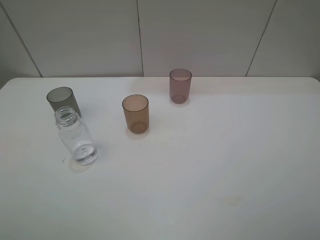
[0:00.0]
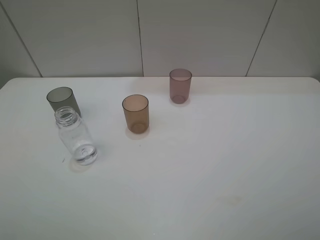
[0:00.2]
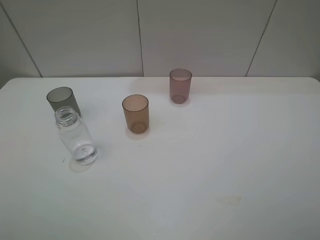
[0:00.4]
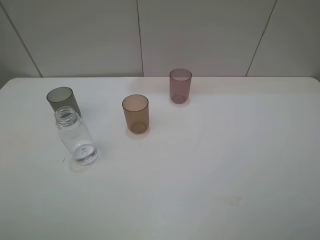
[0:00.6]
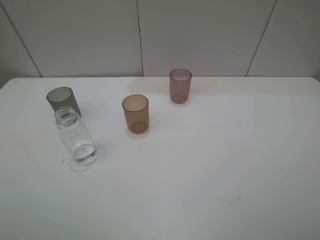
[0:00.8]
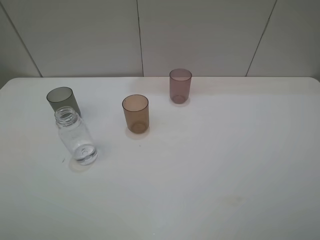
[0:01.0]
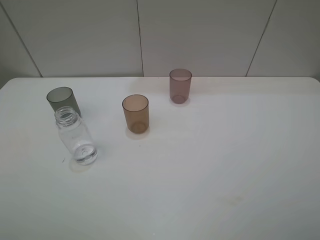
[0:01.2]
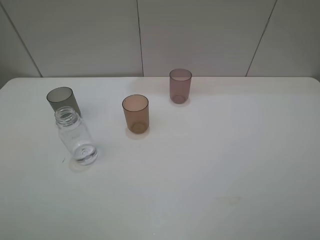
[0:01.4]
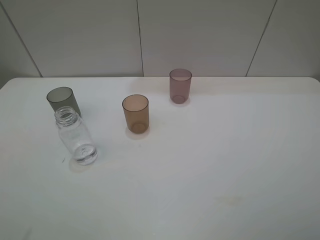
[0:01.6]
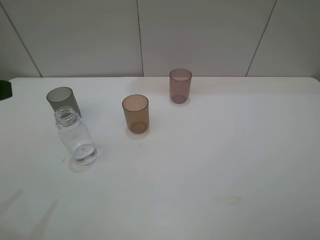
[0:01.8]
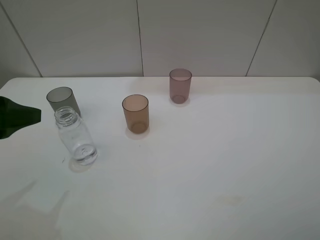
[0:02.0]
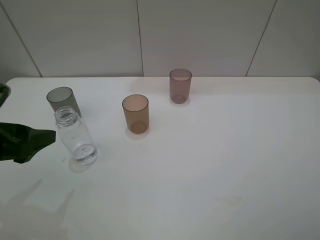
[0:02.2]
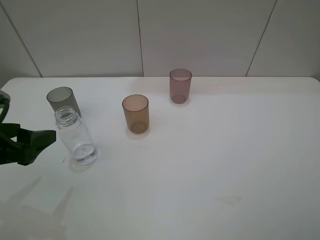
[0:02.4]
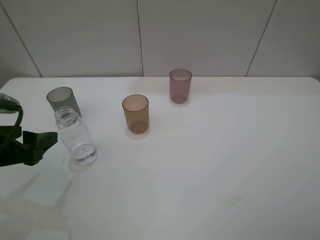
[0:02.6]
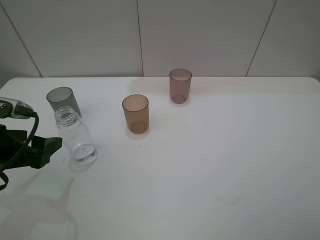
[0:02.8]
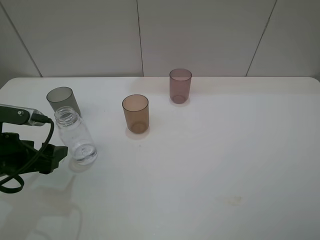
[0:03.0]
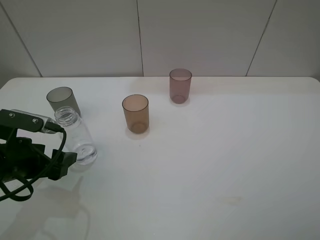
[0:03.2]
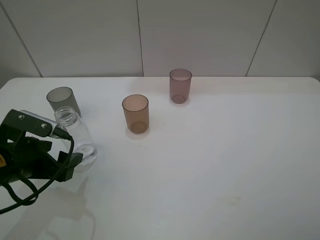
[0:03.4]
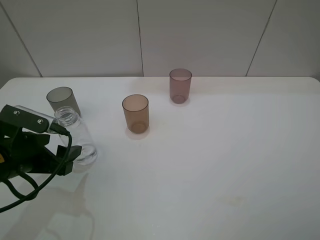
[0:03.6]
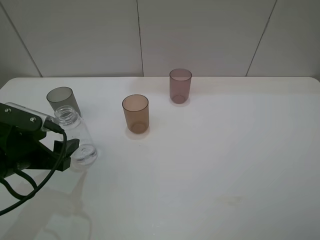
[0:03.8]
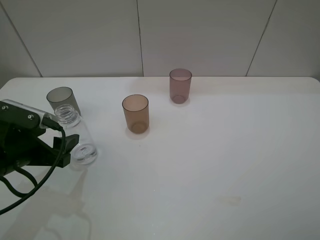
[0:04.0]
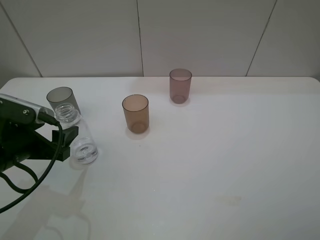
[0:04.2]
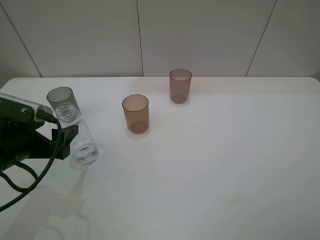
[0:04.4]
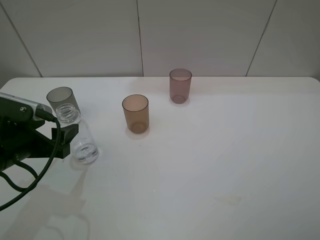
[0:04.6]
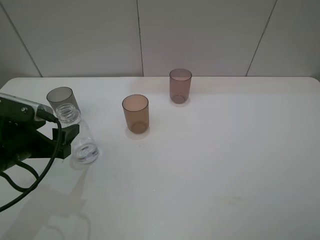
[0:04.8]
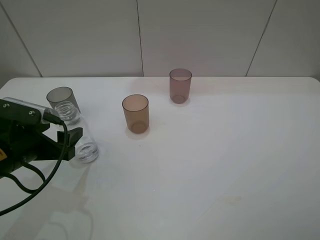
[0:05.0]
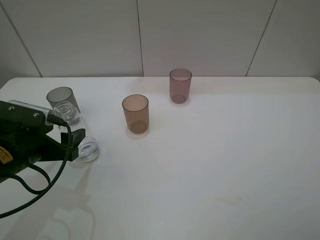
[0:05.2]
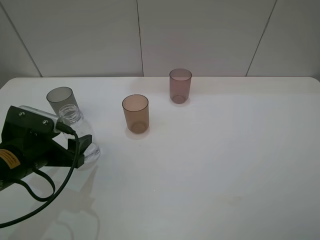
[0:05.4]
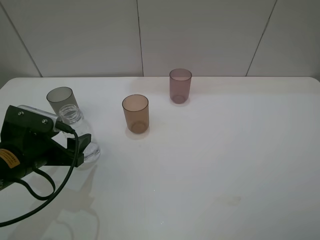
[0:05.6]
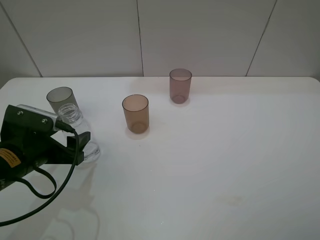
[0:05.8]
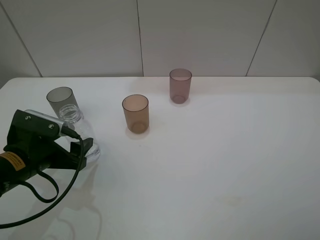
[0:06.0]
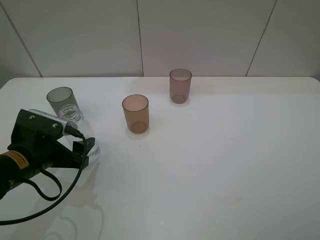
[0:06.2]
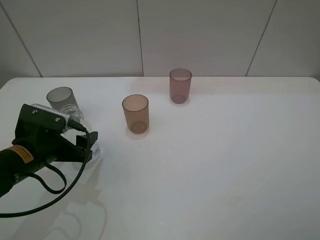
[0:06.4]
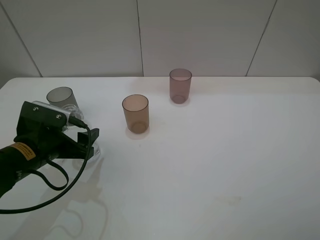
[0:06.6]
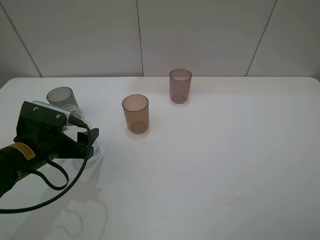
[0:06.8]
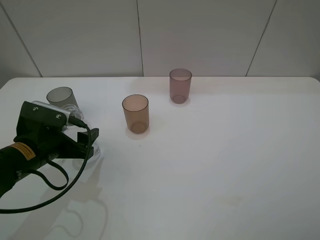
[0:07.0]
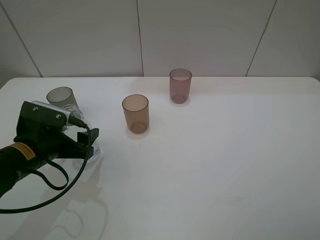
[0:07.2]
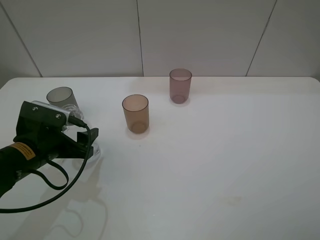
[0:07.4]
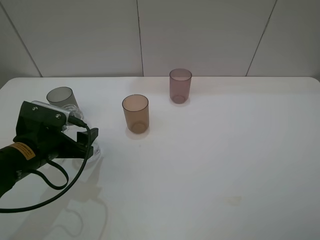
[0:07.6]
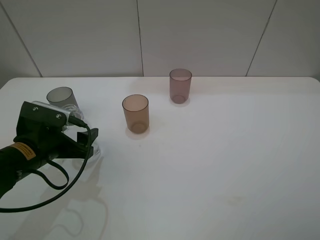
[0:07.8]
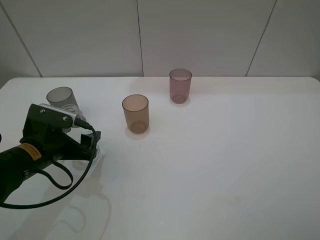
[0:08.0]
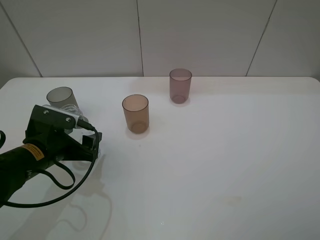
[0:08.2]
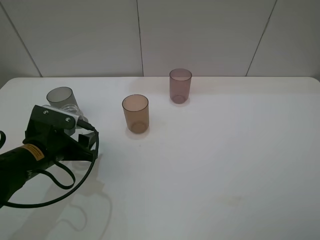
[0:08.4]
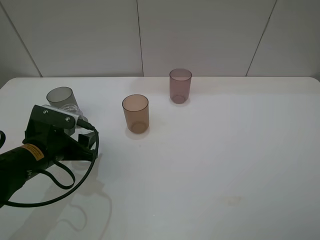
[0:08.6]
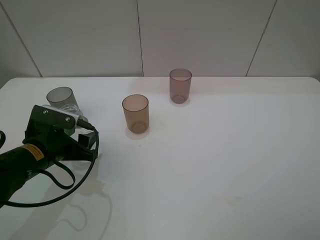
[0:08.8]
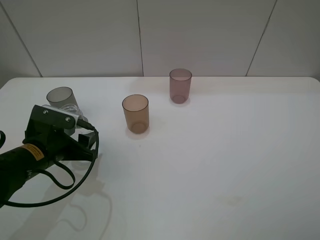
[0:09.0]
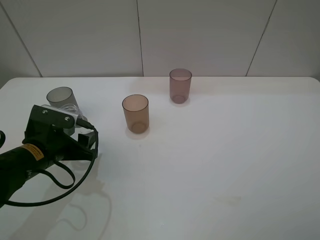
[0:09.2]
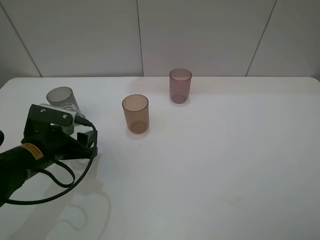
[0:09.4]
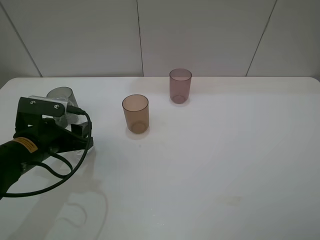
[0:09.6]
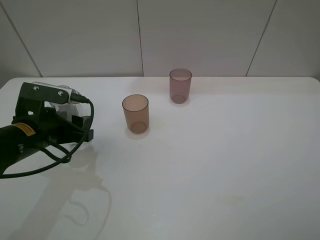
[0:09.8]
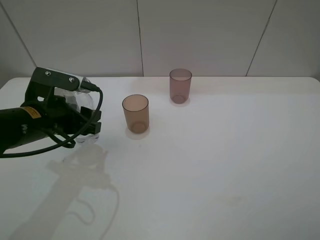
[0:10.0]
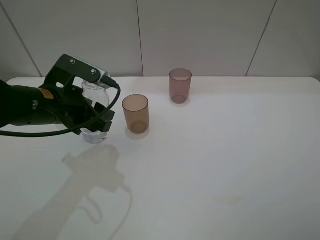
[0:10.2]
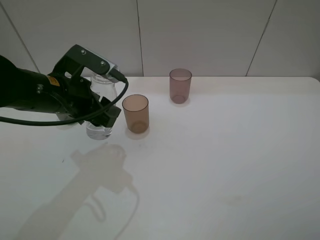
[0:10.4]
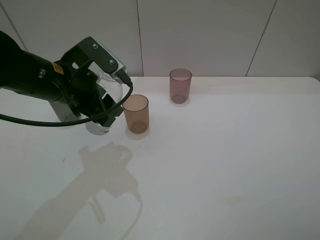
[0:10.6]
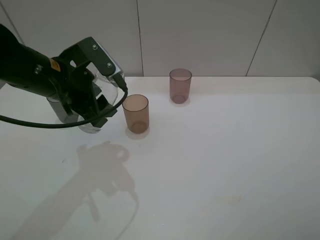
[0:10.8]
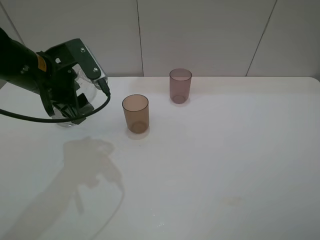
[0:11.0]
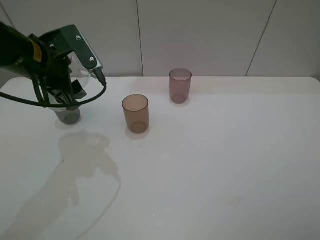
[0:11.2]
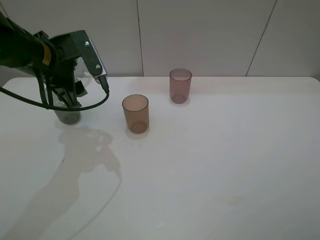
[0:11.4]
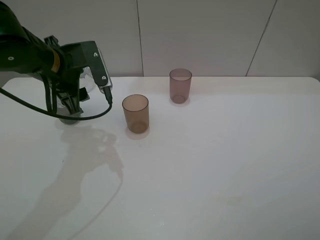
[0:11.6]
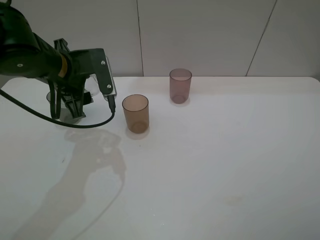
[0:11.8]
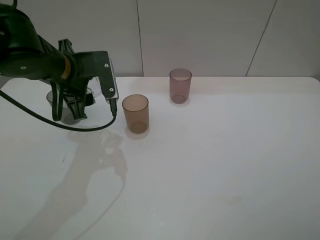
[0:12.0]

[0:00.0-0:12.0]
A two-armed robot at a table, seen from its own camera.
Task of the whole recording: pick up the bottle filled with water and pour water into the middle cup of the three cups.
0:01.6 to 0:03.0: The left gripper is displaced downward and forward by approximately 20 cm.
0:03.0 to 0:04.4: The grippers move only a little.
0:04.4 to 0:07.6: The grippers stay close to where they were, moving slightly.
0:07.6 to 0:09.0: The left gripper closes.
0:09.0 to 0:10.4: The left gripper is displaced upward, forward and to the right by some 15 cm.

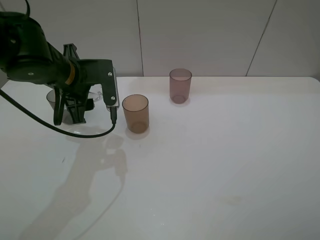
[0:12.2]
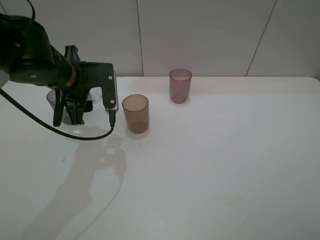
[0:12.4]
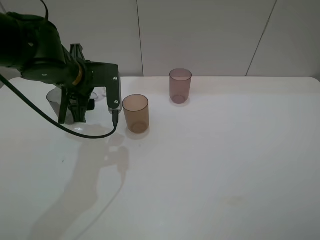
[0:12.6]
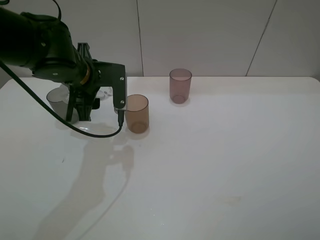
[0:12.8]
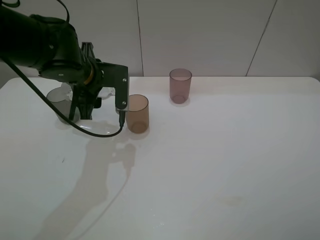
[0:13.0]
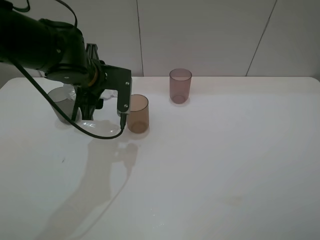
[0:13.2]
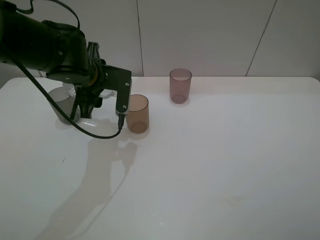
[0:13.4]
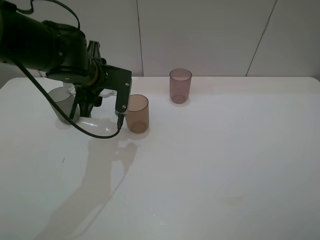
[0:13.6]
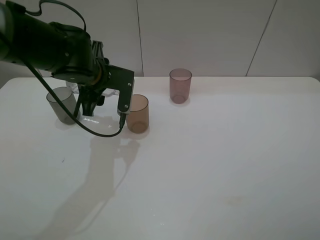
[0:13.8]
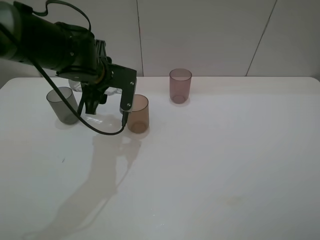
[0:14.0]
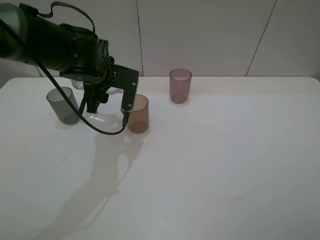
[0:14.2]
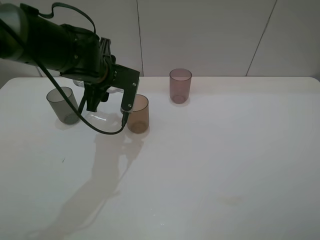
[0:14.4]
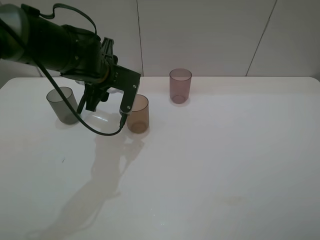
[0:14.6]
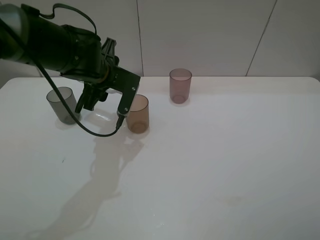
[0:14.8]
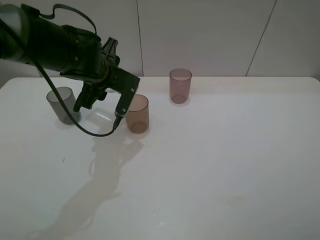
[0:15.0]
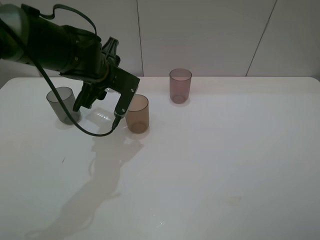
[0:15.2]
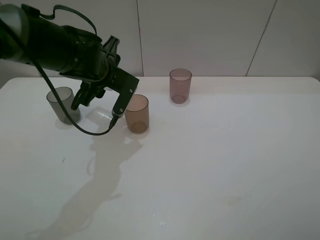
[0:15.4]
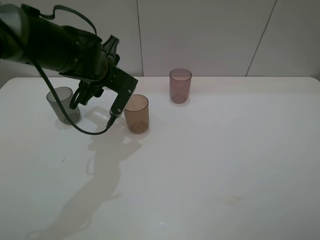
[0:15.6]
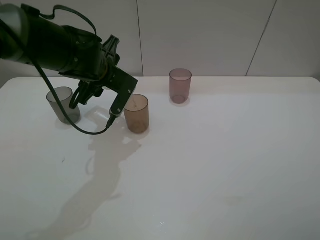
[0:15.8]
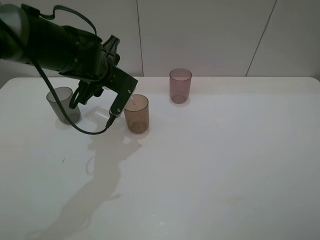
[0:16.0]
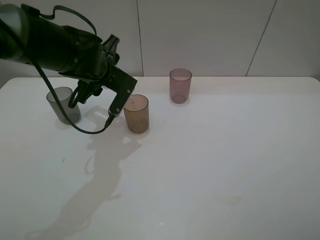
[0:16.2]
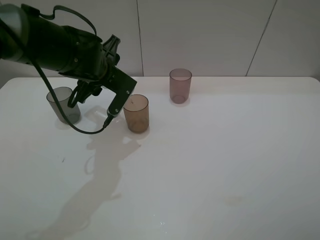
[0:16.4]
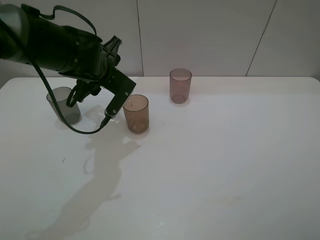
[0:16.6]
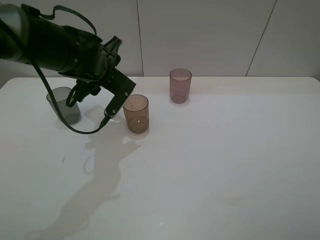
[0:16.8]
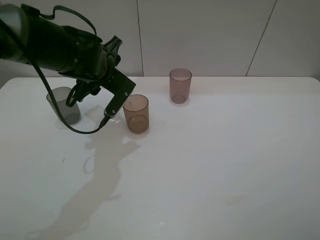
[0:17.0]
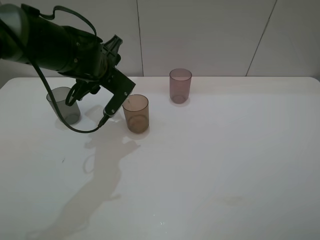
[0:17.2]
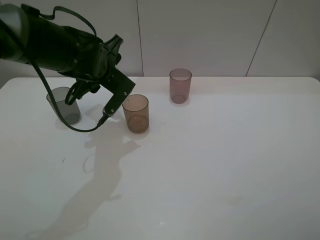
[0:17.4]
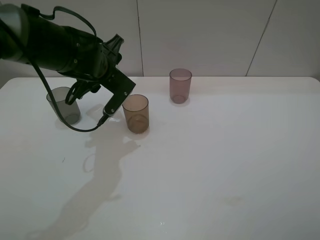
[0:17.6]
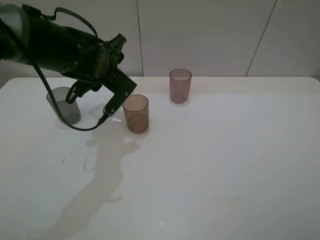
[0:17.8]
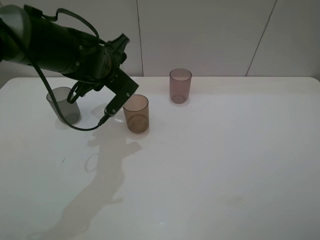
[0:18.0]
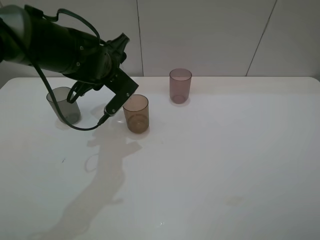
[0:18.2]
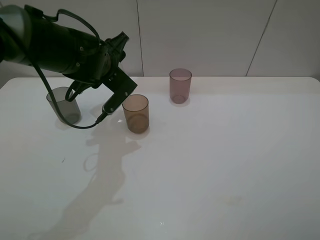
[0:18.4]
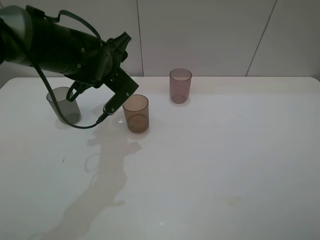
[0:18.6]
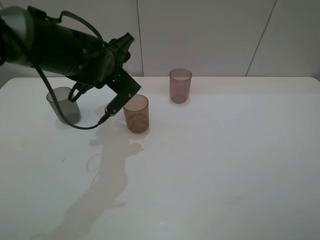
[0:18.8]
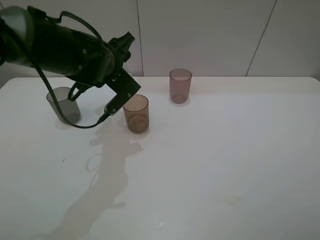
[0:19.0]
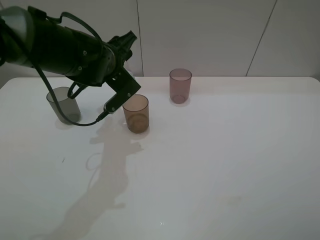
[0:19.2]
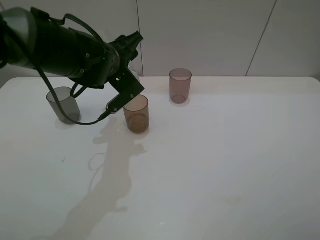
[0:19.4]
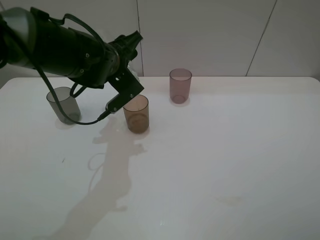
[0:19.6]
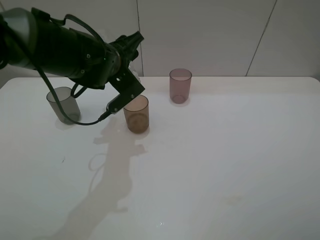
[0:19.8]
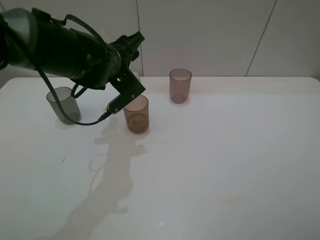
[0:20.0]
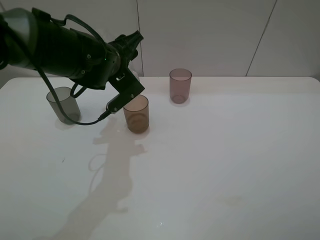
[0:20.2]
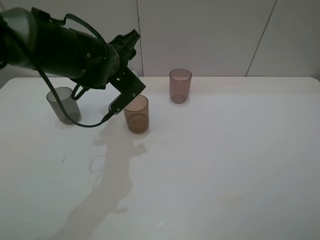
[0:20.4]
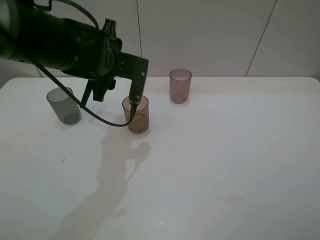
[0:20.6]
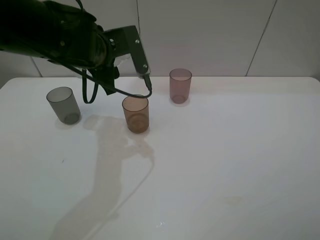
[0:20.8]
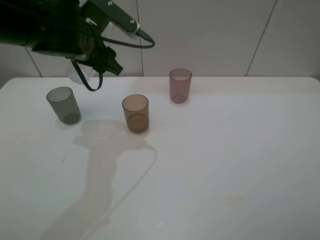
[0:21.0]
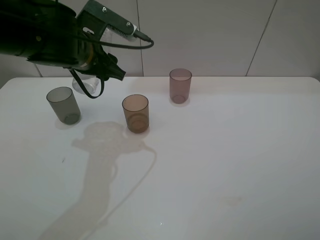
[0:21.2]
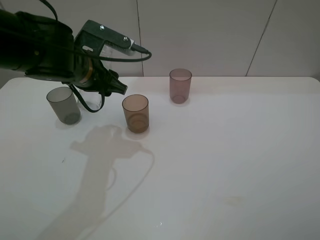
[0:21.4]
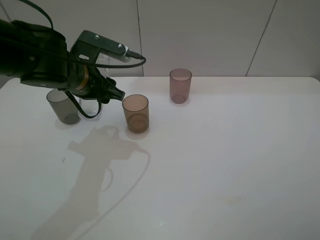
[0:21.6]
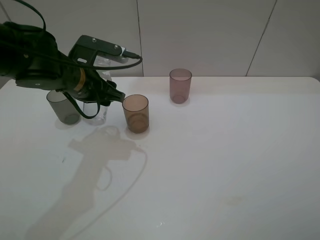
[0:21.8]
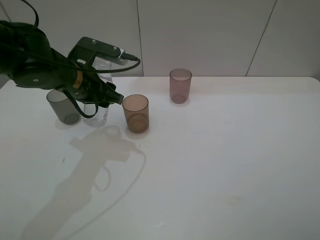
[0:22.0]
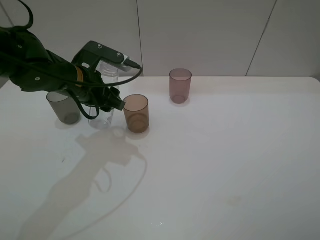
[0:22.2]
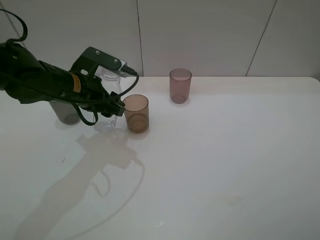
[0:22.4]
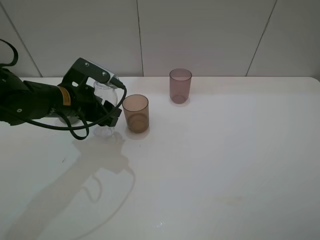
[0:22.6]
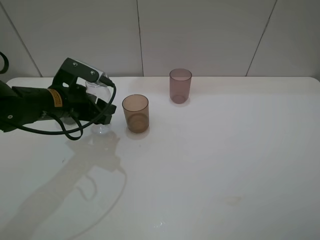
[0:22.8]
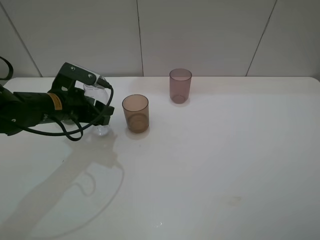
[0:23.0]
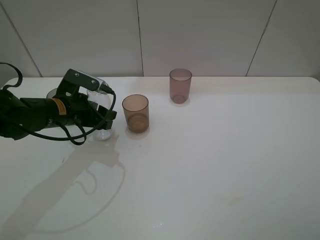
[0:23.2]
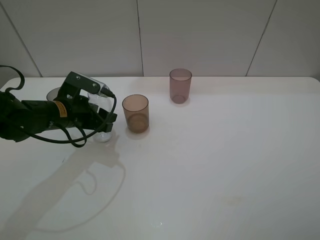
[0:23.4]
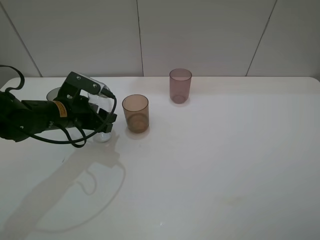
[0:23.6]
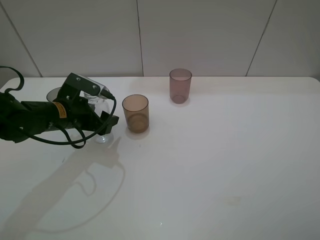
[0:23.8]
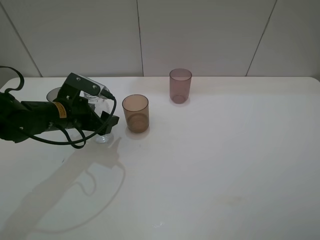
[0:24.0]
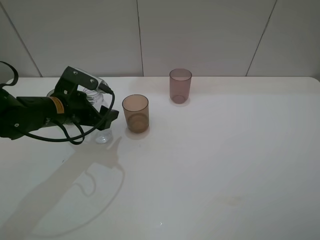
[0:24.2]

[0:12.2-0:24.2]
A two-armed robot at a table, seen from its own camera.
Task of the whole recording: pick up the bottle filled with water and pour water into the middle cup of the three cups.
0:12.2 to 0:13.8: The left gripper moves approximately 5 cm.
0:13.8 to 0:15.2: There are only small adjustments of the grippers.
0:15.2 to 0:18.2: The grippers stay close to where they were, moving slightly.
0:18.2 to 0:19.8: The grippers make only small movements.
0:19.8 to 0:21.2: The left gripper moves roughly 5 cm.
0:21.2 to 0:22.6: The left gripper travels downward and to the left by some 10 cm.
0:22.6 to 0:24.2: The left gripper opens.
